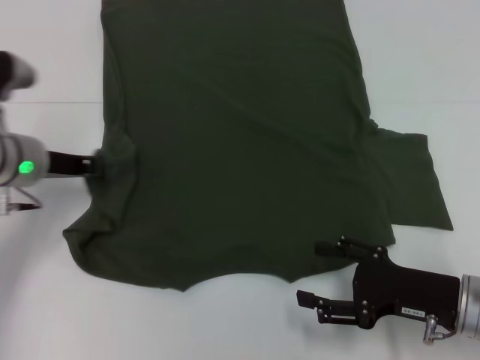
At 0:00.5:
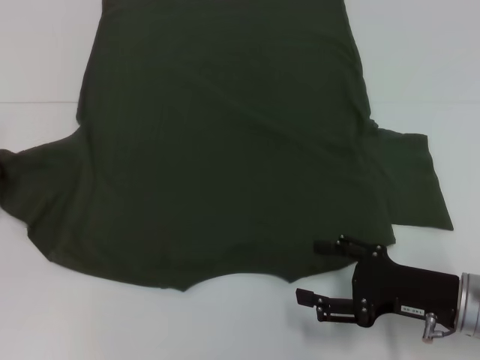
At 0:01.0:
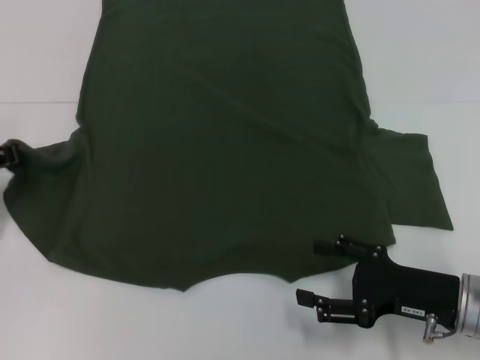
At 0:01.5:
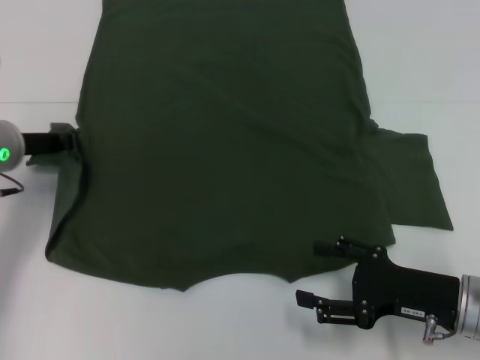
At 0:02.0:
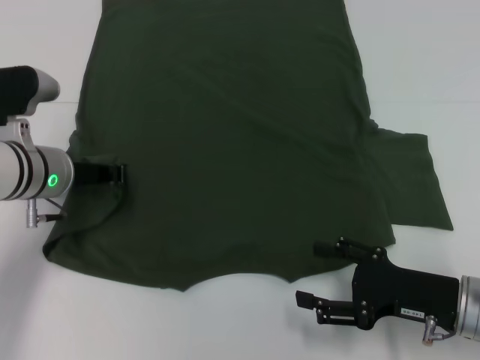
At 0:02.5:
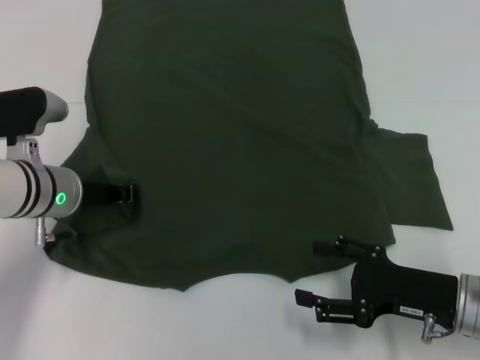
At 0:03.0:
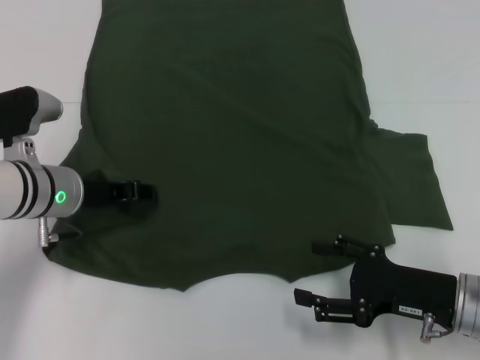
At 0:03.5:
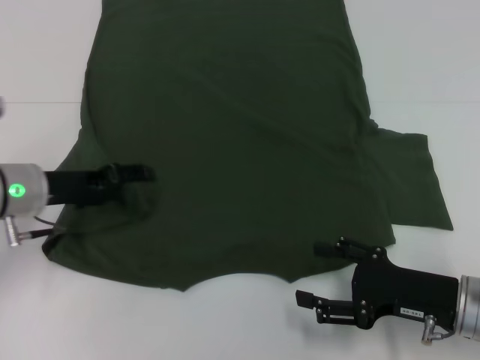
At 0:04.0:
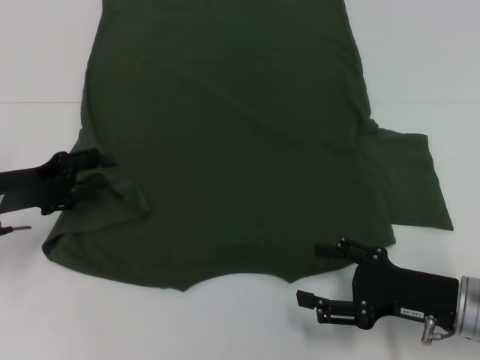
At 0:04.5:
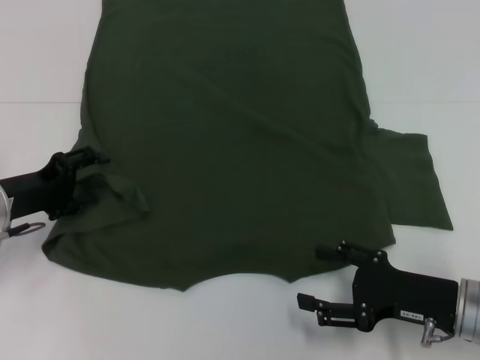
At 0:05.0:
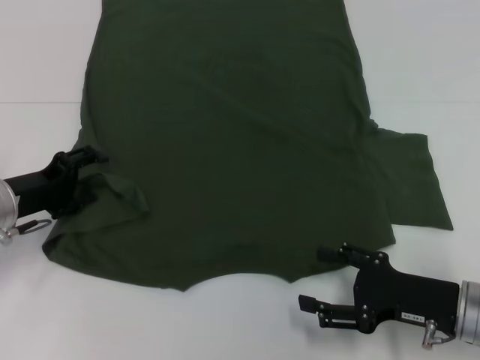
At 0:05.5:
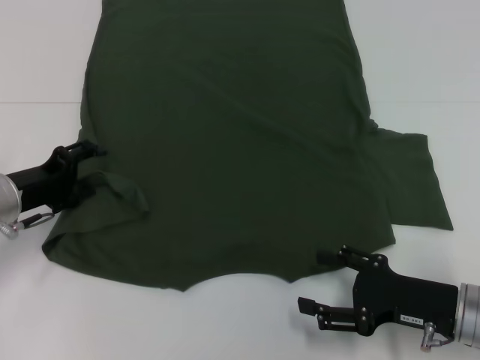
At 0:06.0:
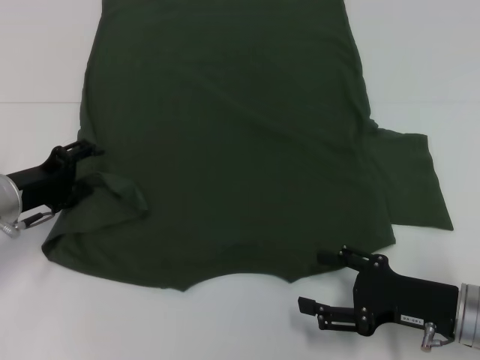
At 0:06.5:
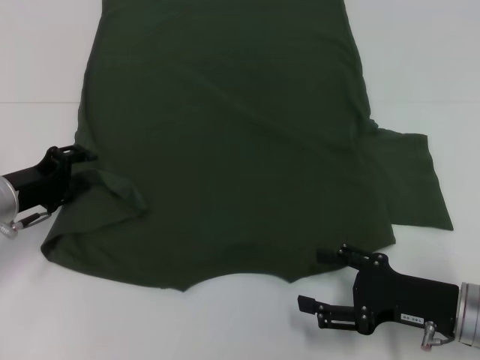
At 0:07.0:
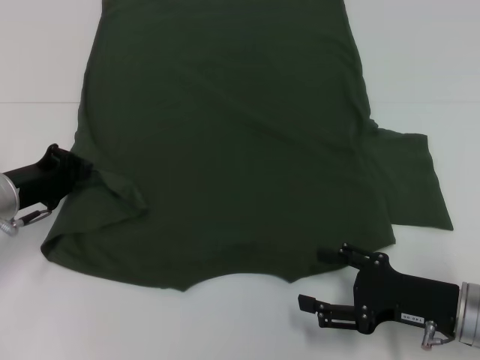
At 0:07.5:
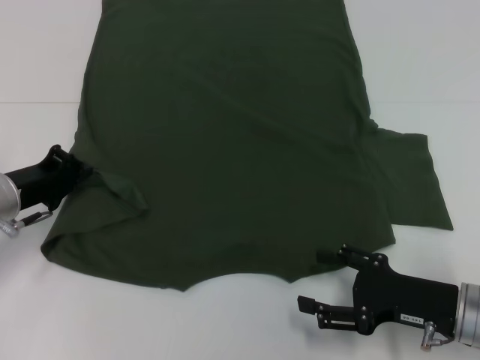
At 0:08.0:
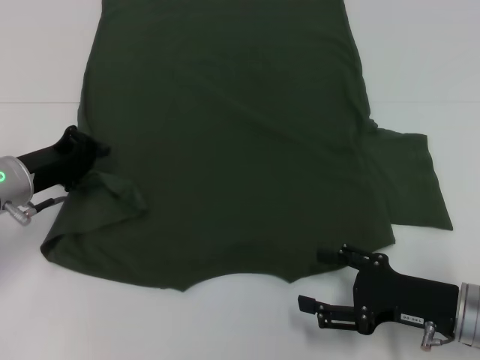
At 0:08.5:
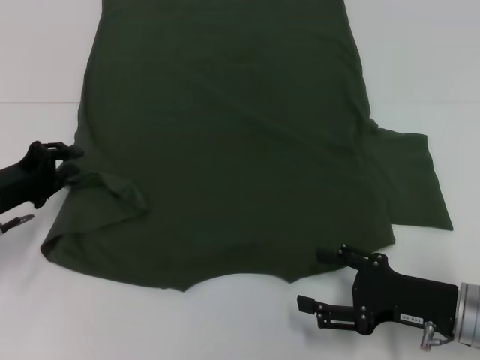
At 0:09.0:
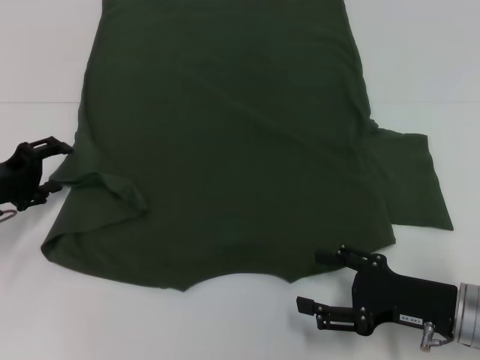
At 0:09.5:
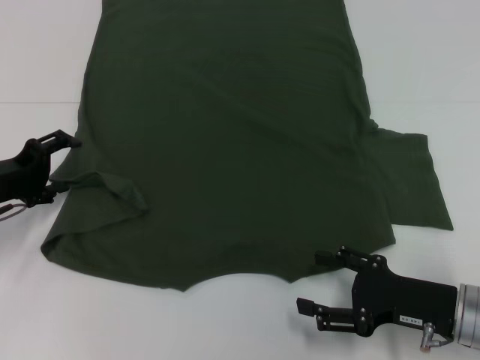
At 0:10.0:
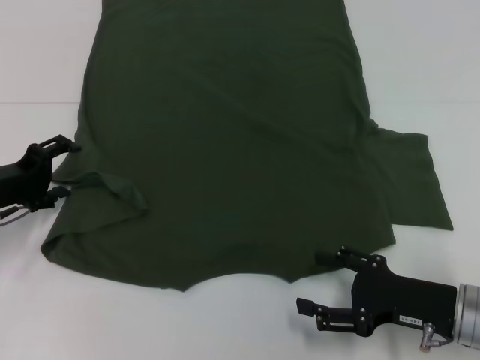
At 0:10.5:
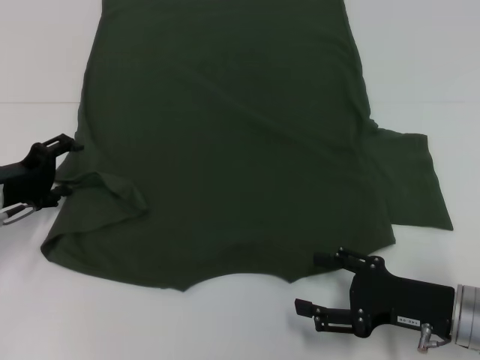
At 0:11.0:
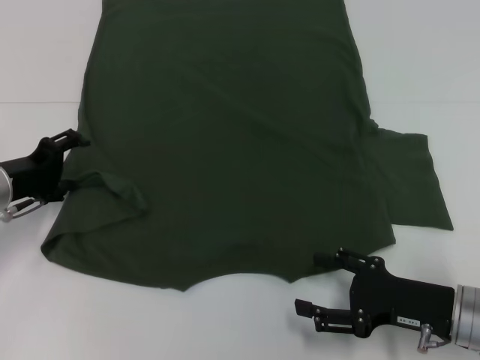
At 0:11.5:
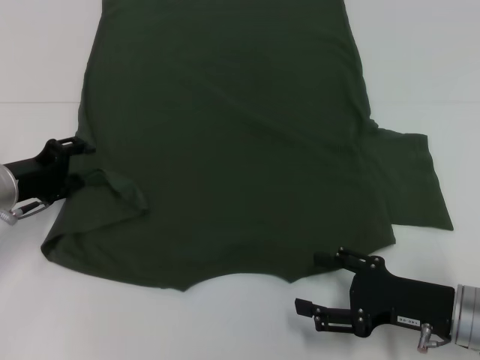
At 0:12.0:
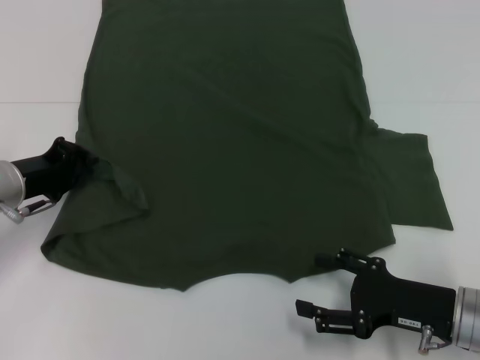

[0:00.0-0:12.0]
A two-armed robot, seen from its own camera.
0:00.0 to 0:02.0: The left gripper travels to the left and back again, about 10 cm each way.
0:02.0 to 0:04.0: The left gripper shifts about 10 cm to the left, and opens.
0:04.0 to 0:06.0: There are only small adjustments of the grippers.
0:06.0 to 0:08.0: The left gripper closes its fingers.
0:08.0 to 0:10.0: The left gripper opens up.
0:10.0 to 0:12.0: The left gripper closes its fingers.

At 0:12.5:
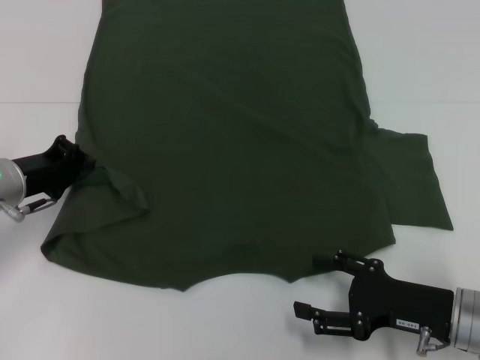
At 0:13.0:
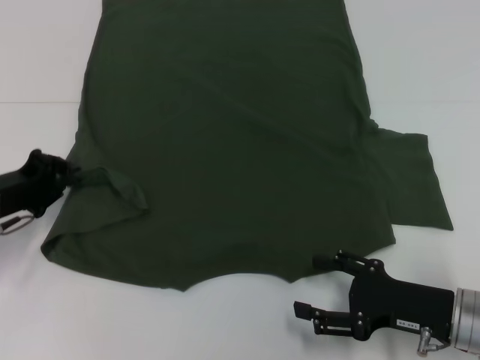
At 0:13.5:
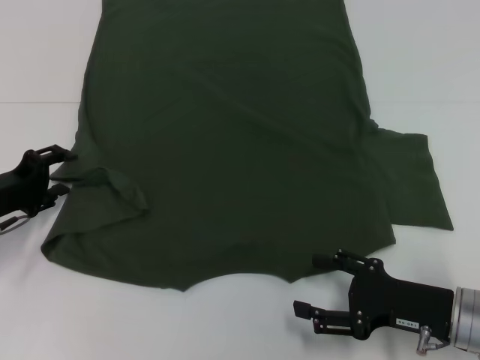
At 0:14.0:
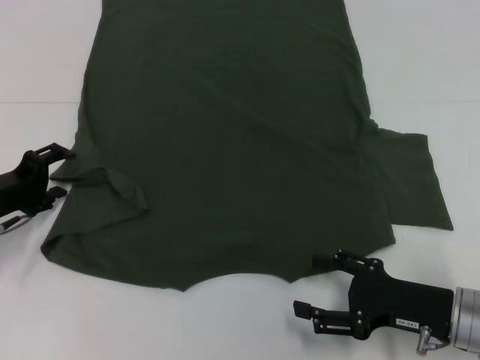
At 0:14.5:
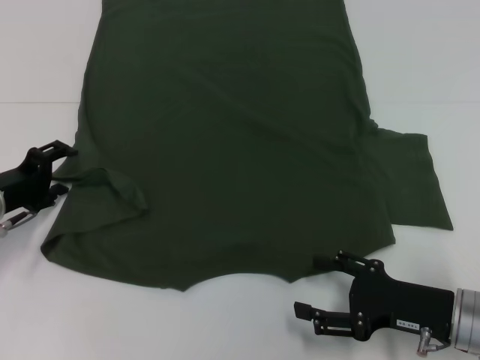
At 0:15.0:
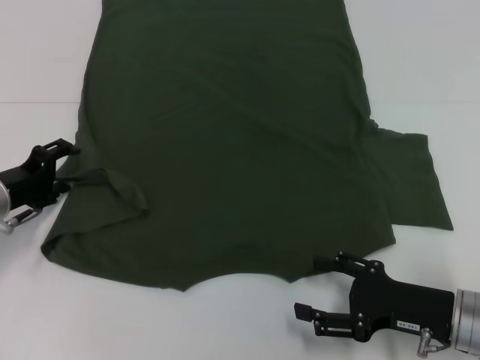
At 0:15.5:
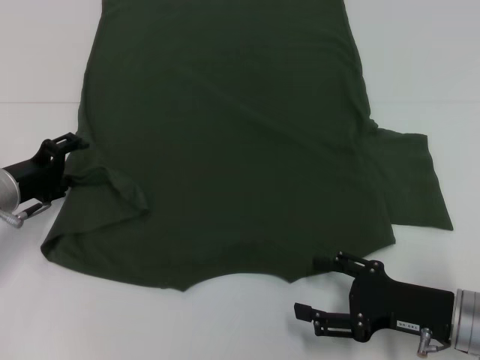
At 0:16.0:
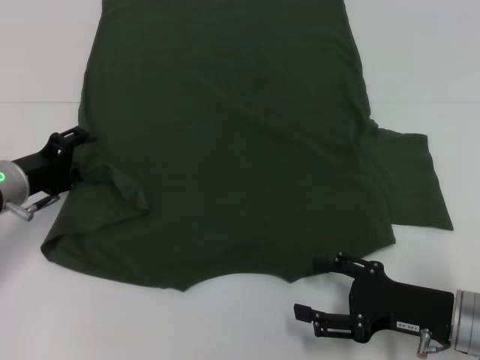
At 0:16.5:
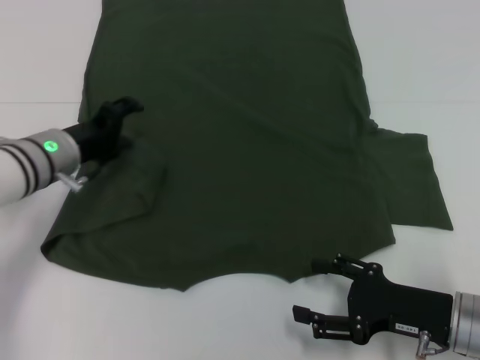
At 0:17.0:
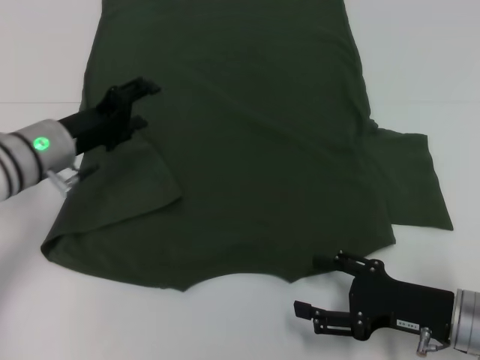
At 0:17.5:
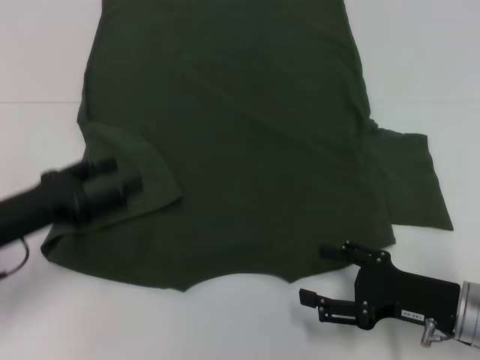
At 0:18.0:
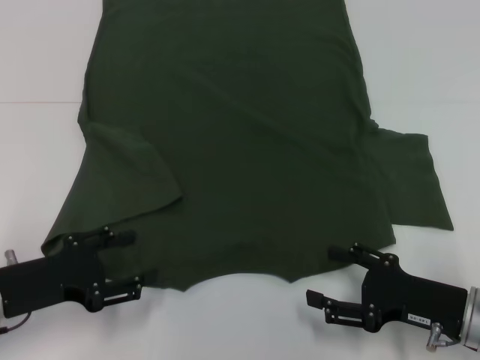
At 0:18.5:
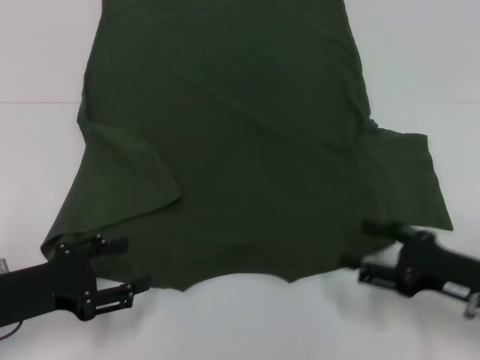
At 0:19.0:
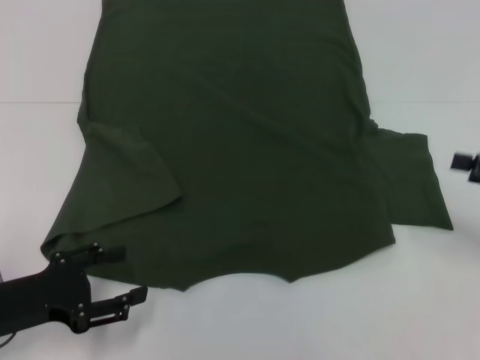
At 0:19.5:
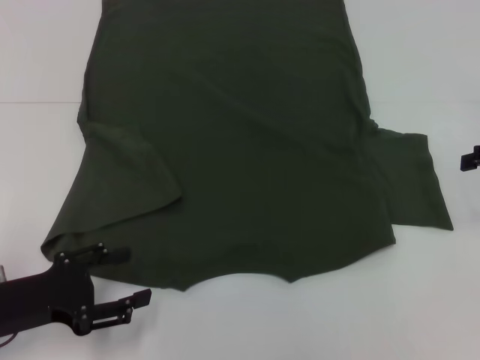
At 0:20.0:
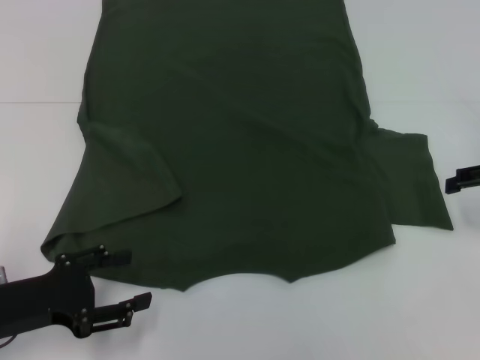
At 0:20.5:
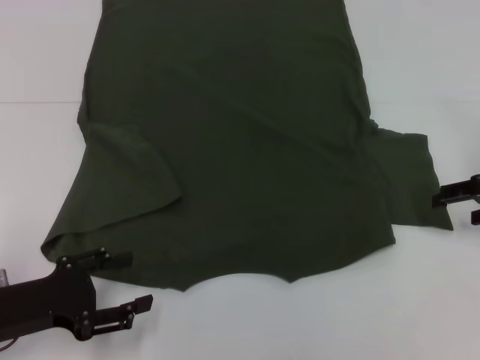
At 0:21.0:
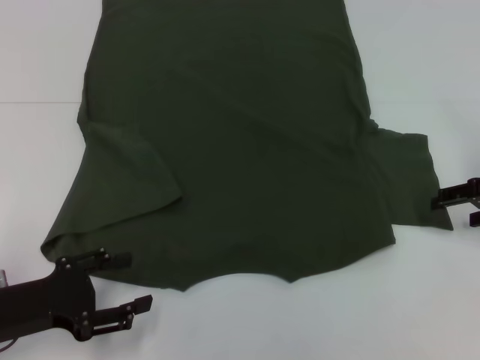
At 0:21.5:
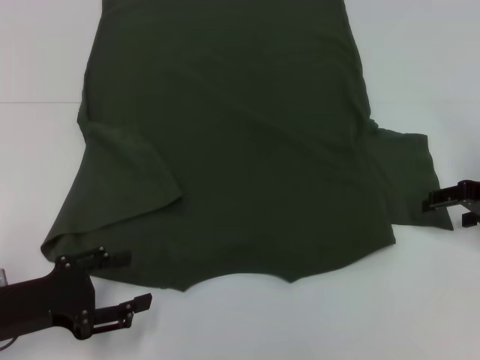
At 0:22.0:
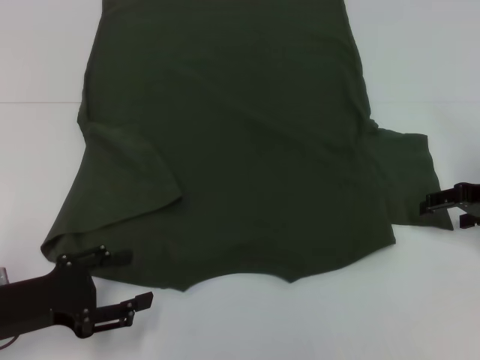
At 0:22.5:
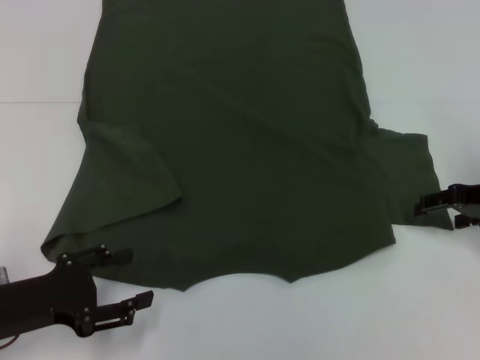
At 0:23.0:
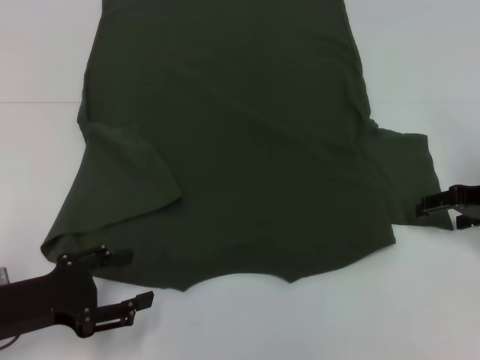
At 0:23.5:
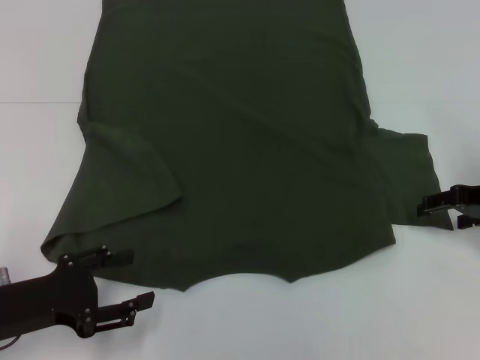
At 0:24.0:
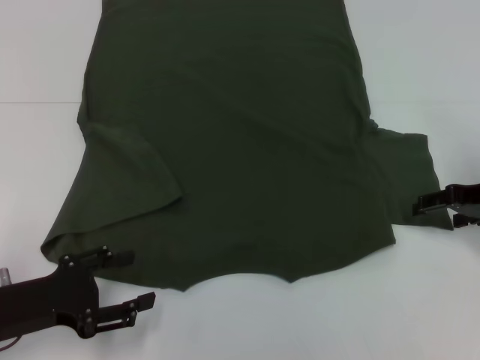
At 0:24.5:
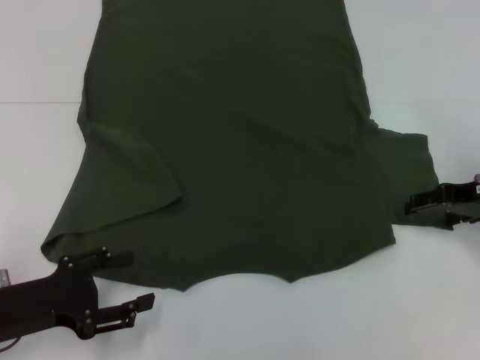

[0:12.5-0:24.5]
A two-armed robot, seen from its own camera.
Step, 0:12.5 to 0:17.0: Fold the bottom left sleeve with your left hand.
0:12.5 to 0:14.5: The left gripper opens up.
0:14.5 to 0:16.5: The left gripper travels to the right by approximately 10 cm.
0:16.5 to 0:18.5: The left gripper goes roughly 15 cm backward.
0:18.5 to 0:20.5: The right gripper shifts about 15 cm forward, upward and to the right.
0:20.5 to 0:22.5: The grippers move only a little.
0:22.5 to 0:24.5: Both grippers stay put.

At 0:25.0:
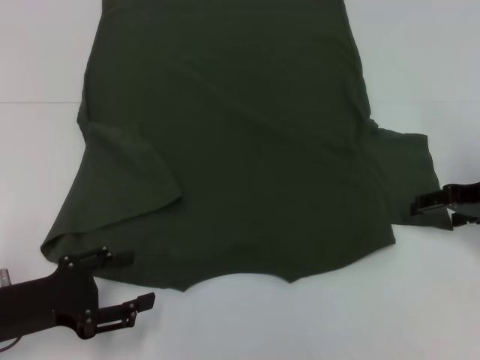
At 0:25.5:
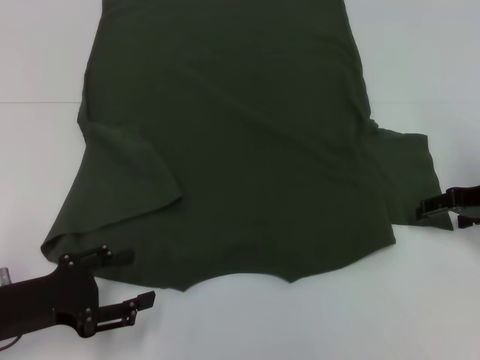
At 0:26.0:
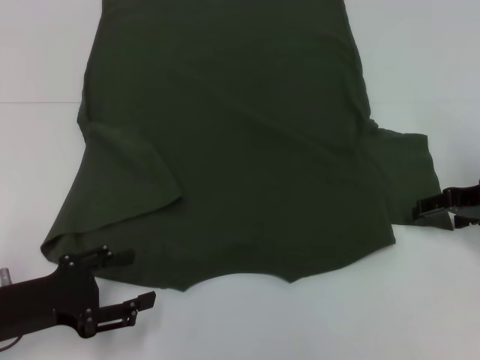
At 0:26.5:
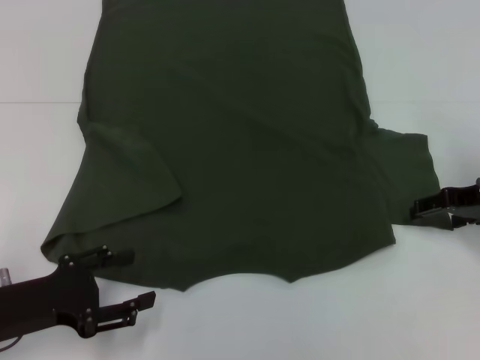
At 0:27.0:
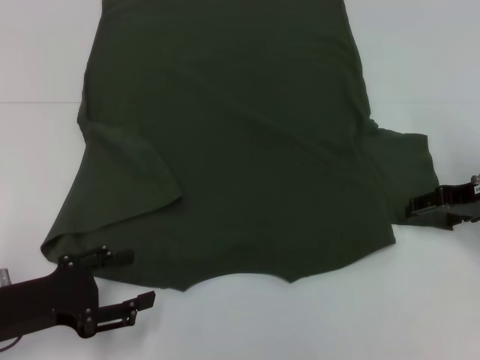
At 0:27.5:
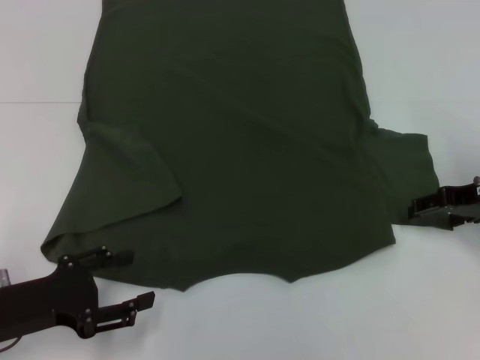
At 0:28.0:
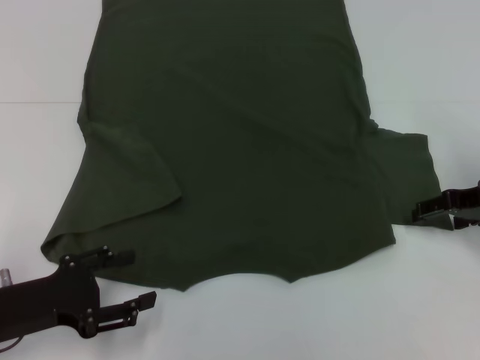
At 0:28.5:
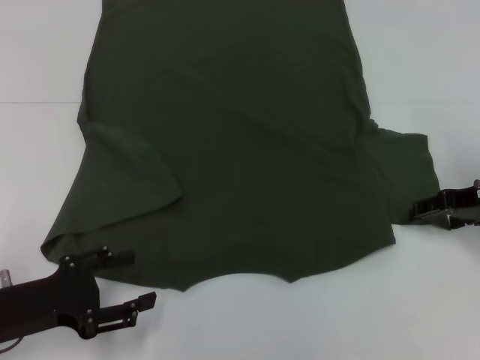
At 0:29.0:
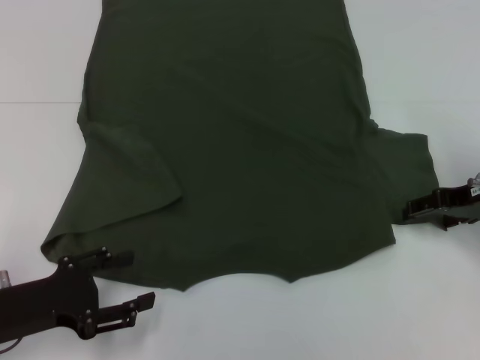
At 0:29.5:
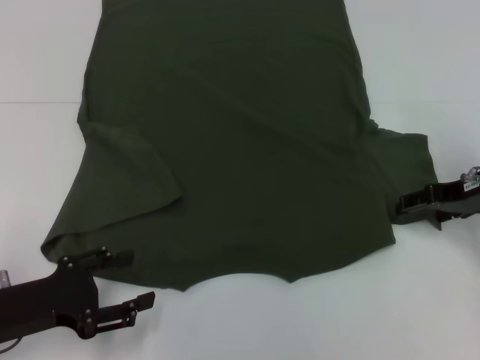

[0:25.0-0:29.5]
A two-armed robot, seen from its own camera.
0:25.0 to 0:27.0: Neither gripper changes place.
0:27.0 to 0:29.5: Both grippers stay put.
